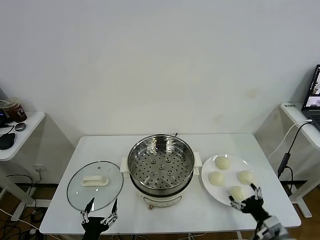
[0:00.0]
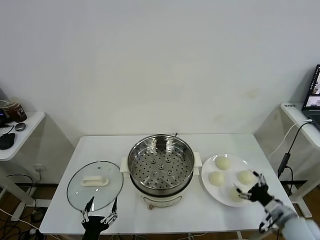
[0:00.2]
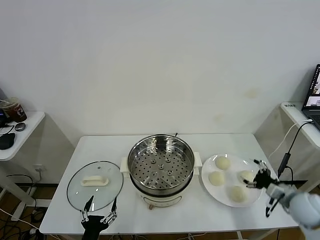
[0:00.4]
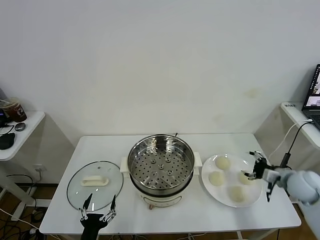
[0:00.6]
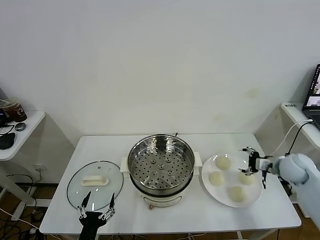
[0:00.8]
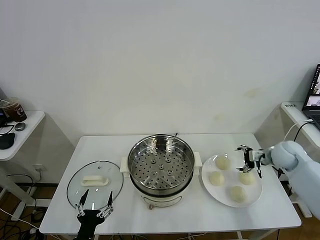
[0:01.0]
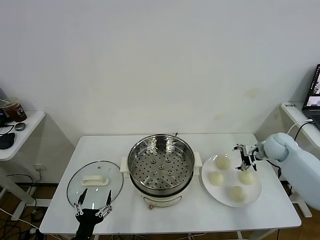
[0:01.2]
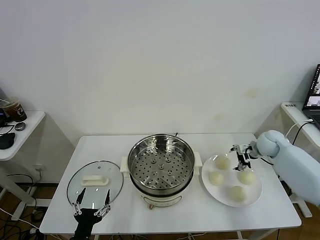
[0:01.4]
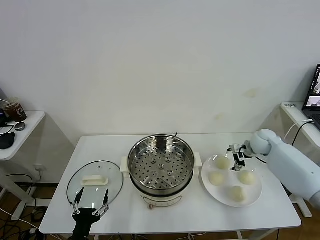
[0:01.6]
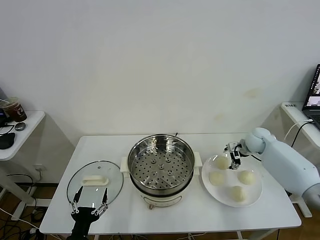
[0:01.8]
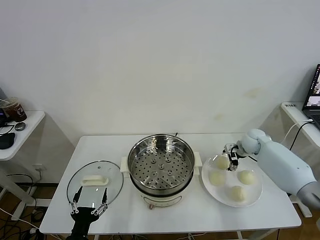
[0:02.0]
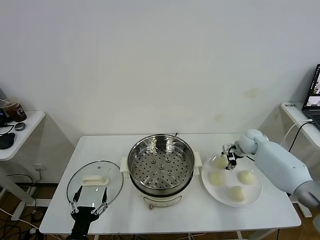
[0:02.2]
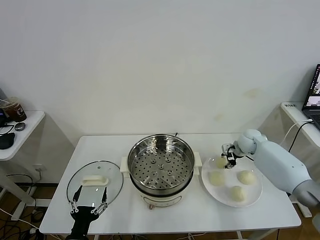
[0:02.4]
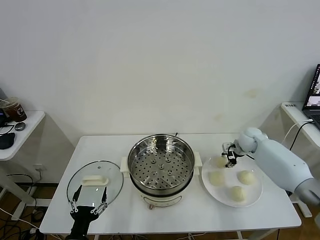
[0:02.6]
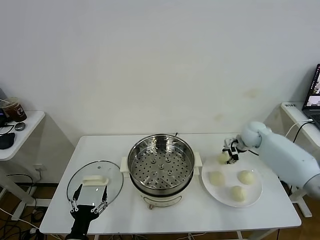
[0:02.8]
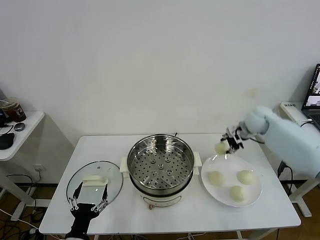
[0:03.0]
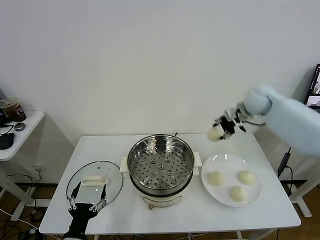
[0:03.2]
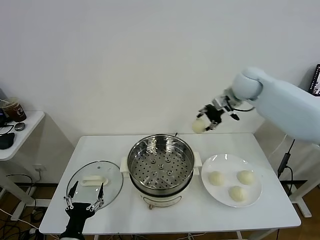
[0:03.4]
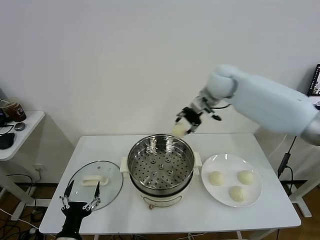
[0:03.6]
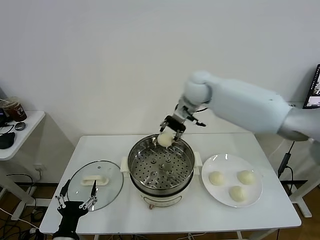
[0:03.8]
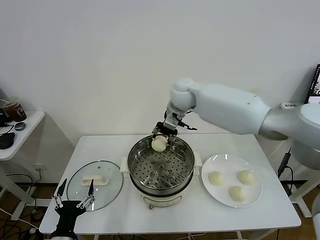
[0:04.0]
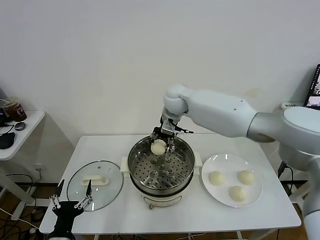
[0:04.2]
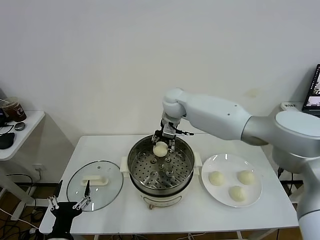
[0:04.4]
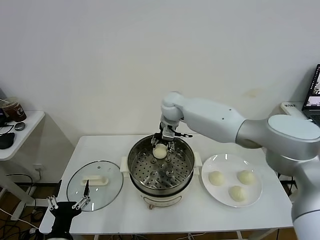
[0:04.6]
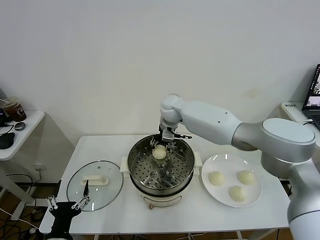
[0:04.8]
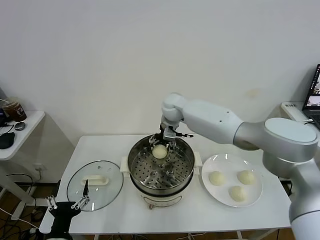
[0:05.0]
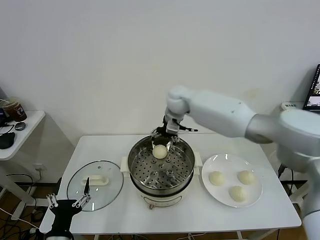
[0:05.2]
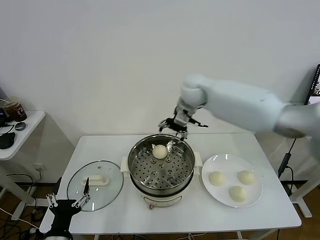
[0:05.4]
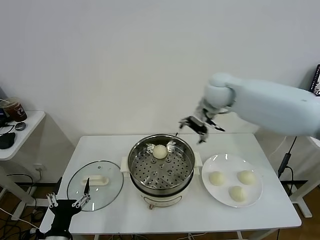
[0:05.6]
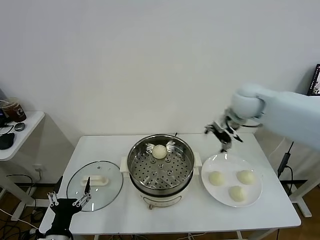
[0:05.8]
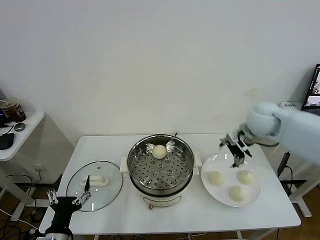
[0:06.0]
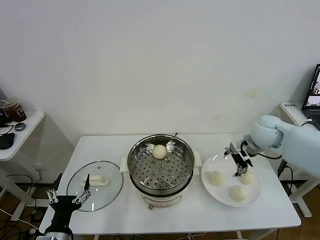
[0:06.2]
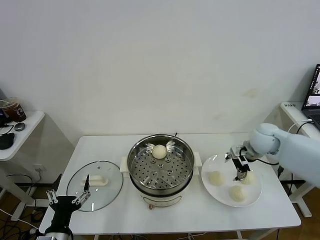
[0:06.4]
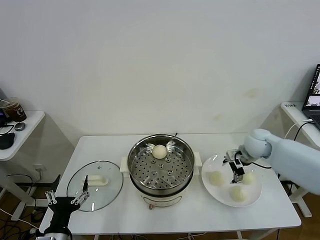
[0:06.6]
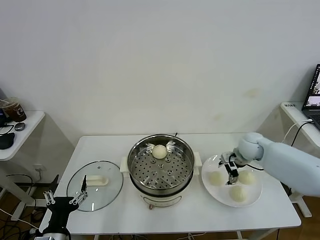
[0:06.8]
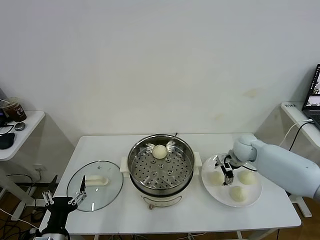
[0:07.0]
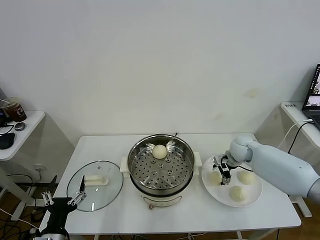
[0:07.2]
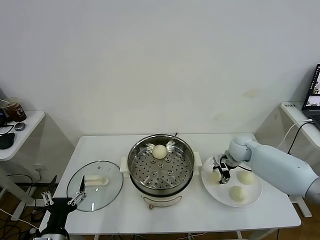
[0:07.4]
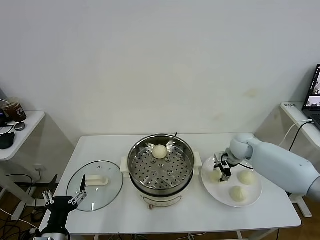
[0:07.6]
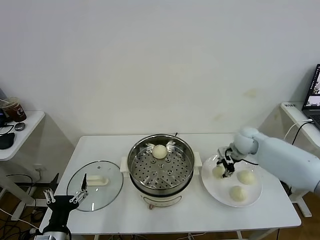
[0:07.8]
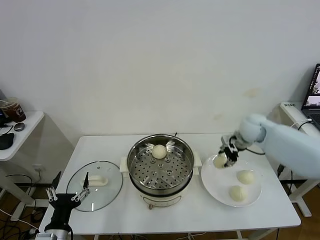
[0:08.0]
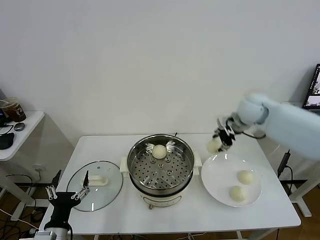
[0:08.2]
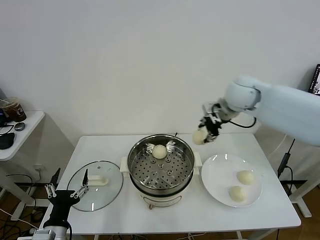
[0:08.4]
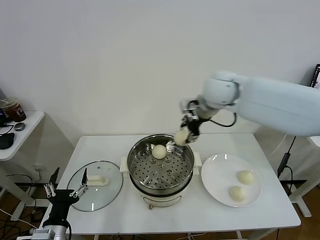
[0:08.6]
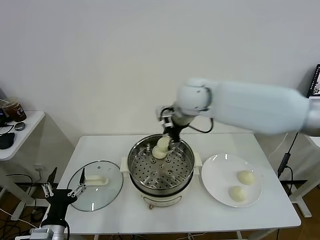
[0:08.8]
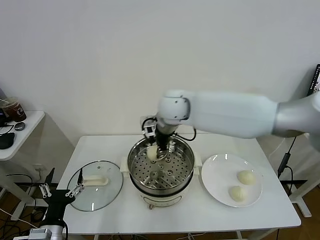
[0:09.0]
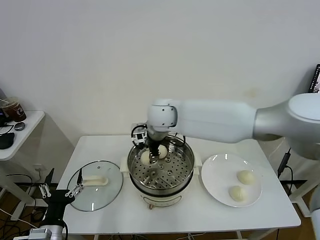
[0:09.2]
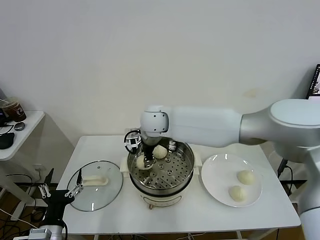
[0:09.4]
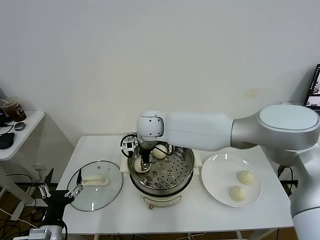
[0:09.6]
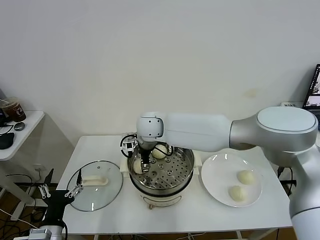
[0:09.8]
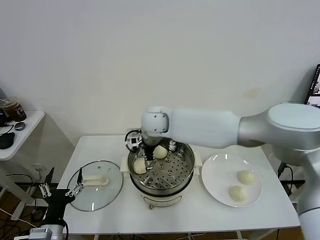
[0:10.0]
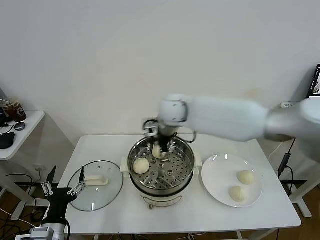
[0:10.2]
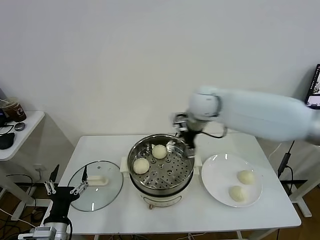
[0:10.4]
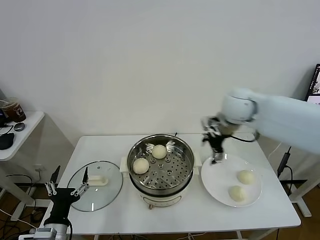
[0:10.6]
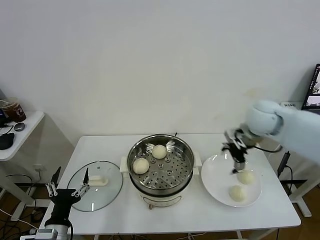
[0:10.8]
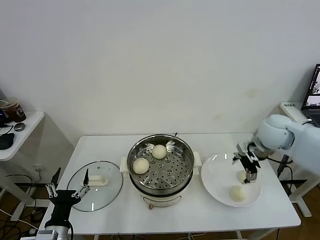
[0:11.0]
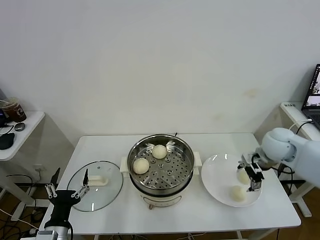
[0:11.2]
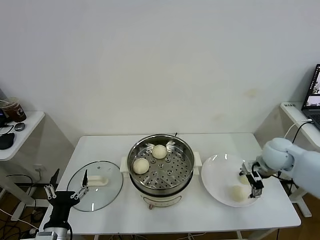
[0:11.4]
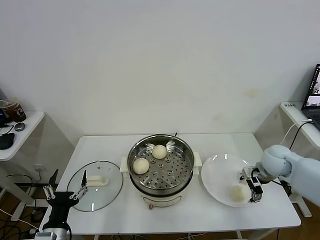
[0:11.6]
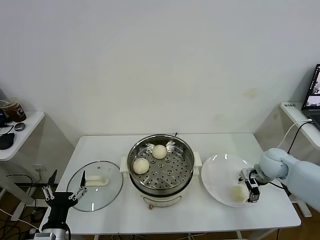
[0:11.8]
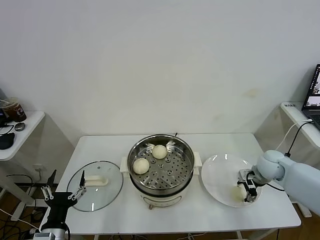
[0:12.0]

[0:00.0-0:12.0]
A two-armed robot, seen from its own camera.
Task of the whole recording: take steamed baozi put them in steamer.
Step, 0:00.0 to 0:02.0: Grasp the baozi in the plate with right gripper.
Step, 0:02.4 to 0:05.0: Place the baozi on the steamer with right gripper.
Step, 0:05.2 to 0:07.4: Grasp the baozi in the plate with right gripper.
Step, 0:07.8 to 0:09.8: Place the baozi on the steamer with right gripper.
0:01.6 to 0:03.0: The right gripper travels upward by roughly 15 cm, and closes up.
0:03.0 to 0:04.4: The right gripper shifts about 30 cm to the left.
0:04.4 to 0:06.0: The right gripper travels to the right by approximately 30 cm, and opens its fingers.
0:06.0 to 0:07.6: The right gripper moves downward, about 10 cm, and closes up.
0:07.6 to 0:09.0: The right gripper heads to the left and upward, covering about 35 cm.
0:09.0 to 0:10.4: The right gripper moves to the right, roughly 15 cm, and opens up.
0:10.4 to 0:12.0: The right gripper is displaced downward and to the right by approximately 30 cm, and closes its fingers.

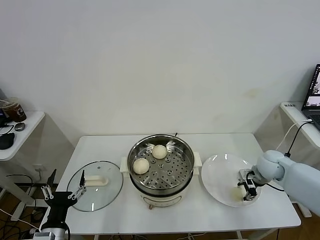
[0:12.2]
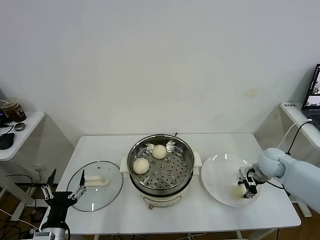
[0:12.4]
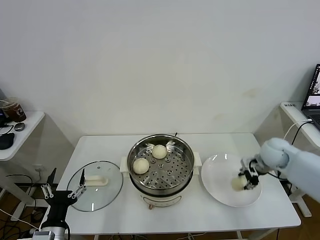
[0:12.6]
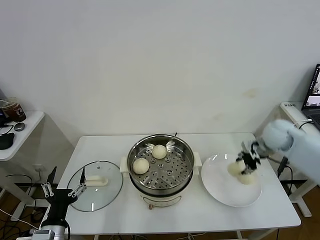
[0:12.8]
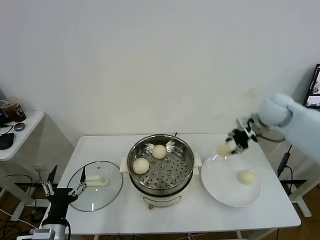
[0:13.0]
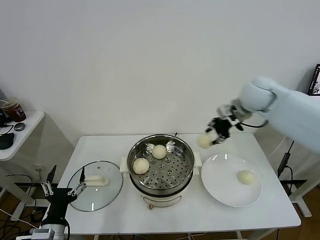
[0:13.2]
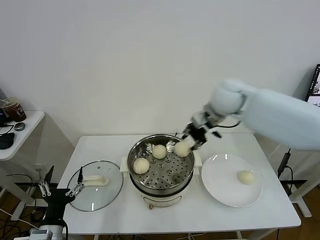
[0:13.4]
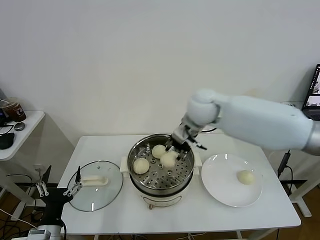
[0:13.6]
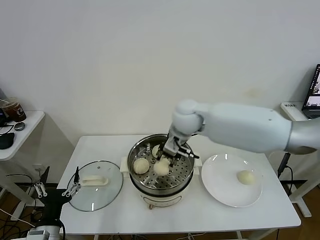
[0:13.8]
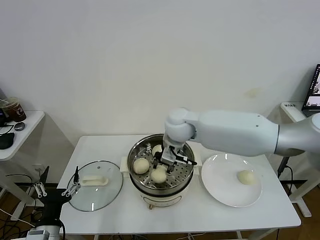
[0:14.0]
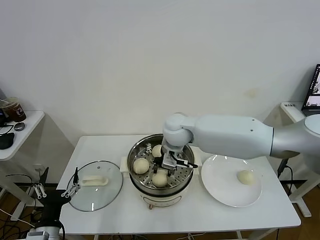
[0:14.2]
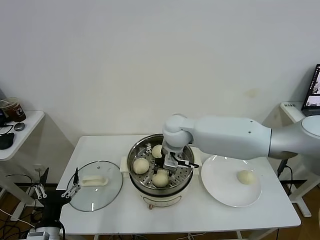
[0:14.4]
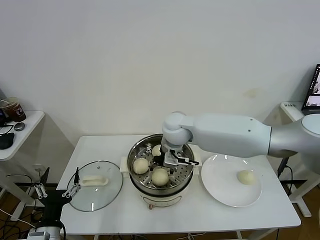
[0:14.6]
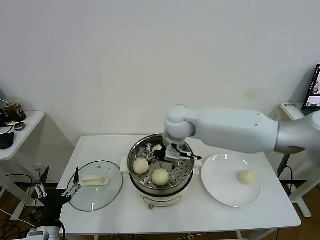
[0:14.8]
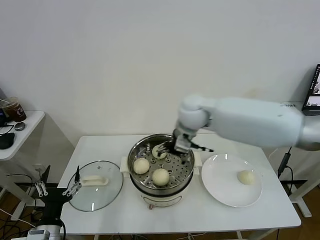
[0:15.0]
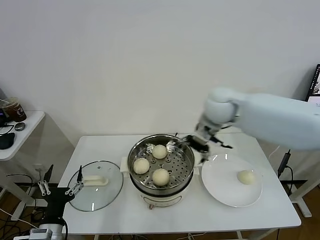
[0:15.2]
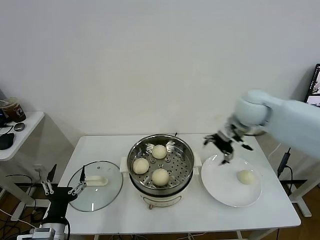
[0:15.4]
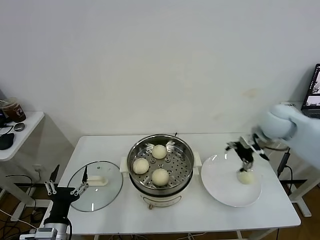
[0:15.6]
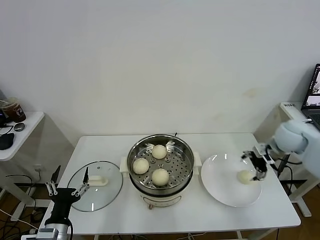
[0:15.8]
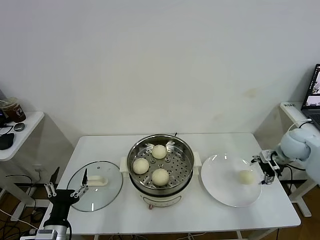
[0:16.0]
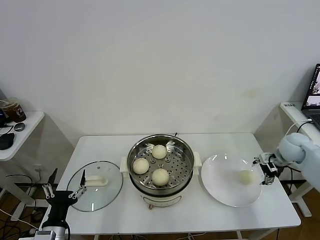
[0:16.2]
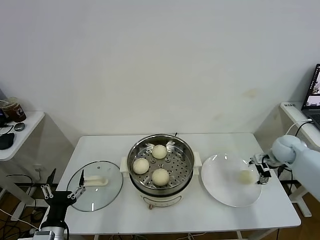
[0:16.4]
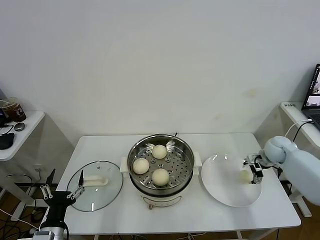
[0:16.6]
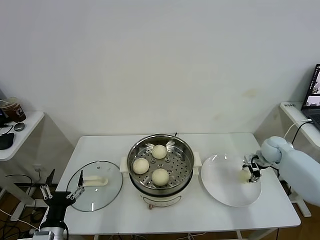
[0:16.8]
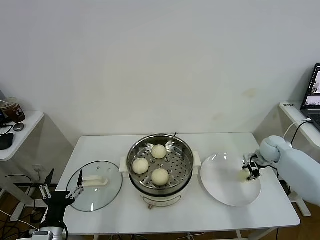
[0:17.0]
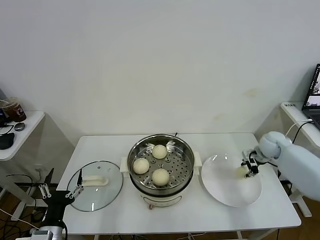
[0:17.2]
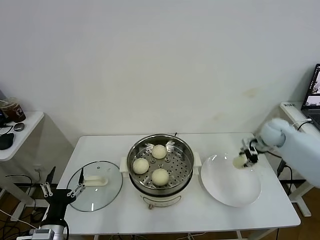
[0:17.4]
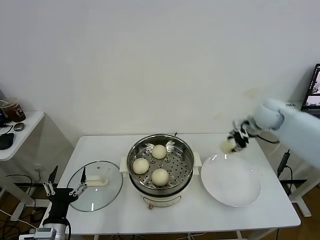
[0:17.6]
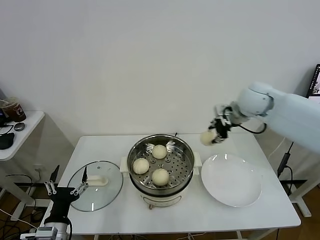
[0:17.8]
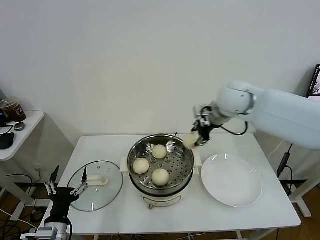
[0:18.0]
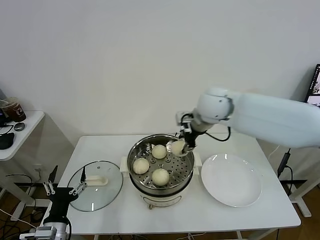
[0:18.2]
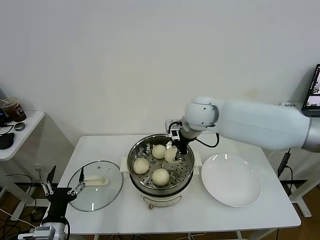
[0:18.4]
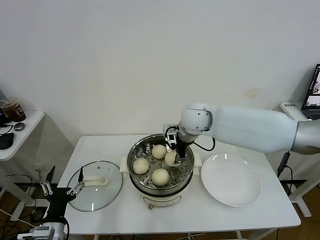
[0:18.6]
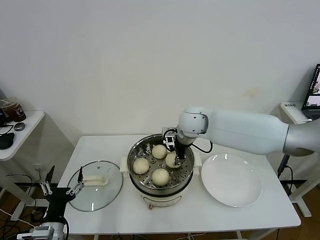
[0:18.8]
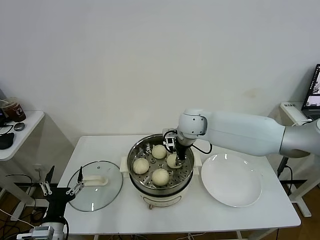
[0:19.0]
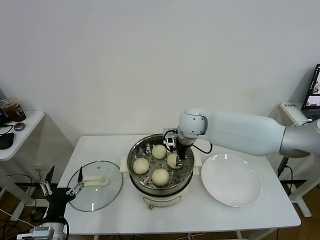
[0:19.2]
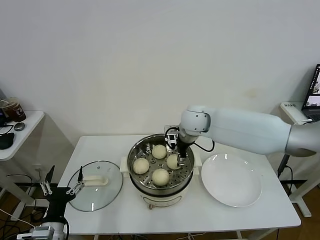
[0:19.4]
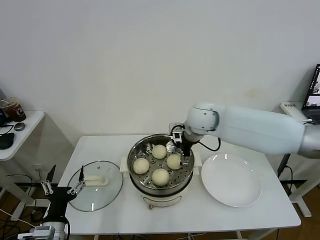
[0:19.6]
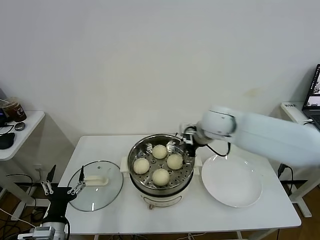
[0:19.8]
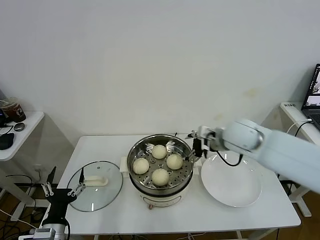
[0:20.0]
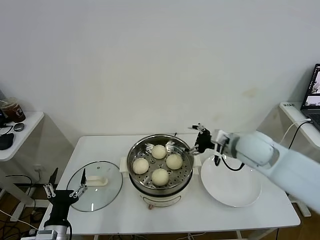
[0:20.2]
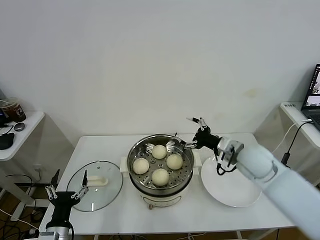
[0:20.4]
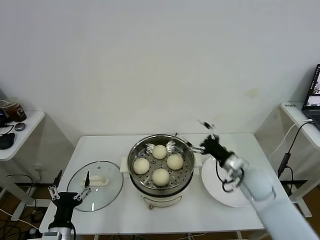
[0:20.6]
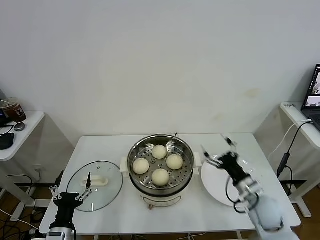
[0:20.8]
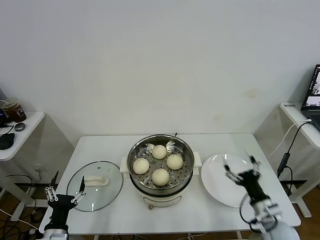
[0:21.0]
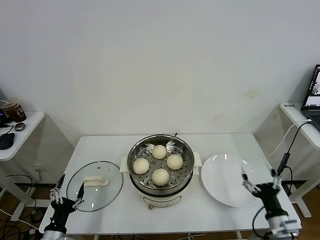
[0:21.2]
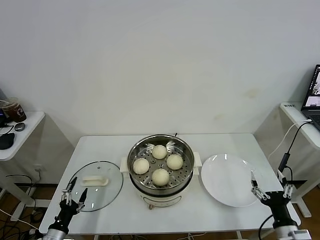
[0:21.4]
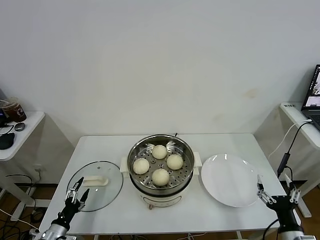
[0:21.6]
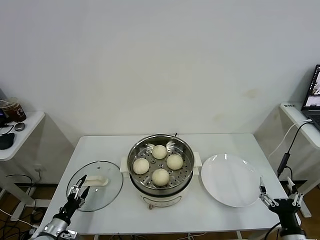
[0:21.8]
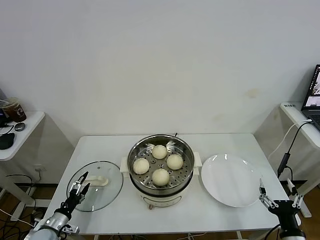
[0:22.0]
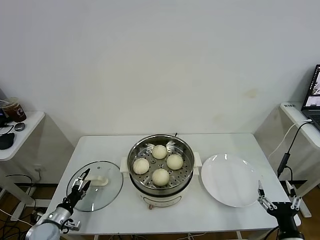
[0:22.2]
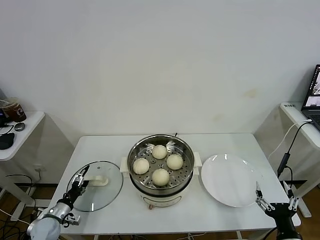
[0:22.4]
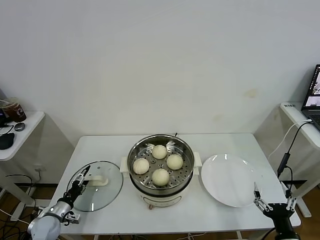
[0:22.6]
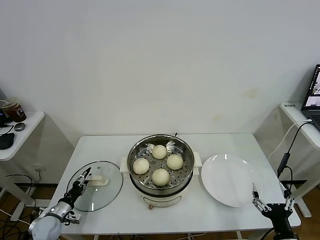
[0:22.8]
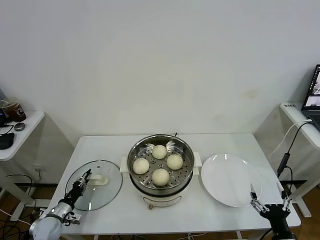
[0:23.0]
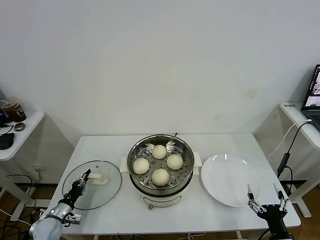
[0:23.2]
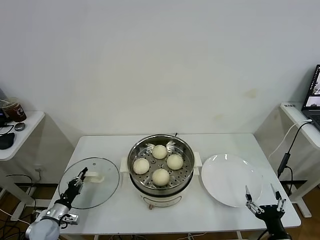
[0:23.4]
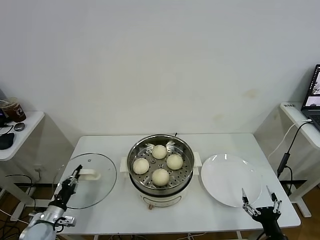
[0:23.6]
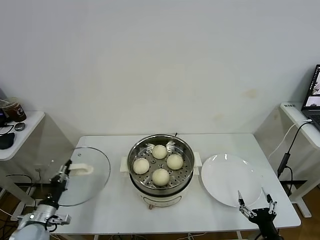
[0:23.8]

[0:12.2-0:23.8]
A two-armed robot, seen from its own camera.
Task of the whole recording: take steamed baozi put them in steamer.
Step, 0:12.4 to 0:14.8: Place the baozi on the steamer with right gripper.
Step, 0:15.2 to 0:16.8: Grasp the baozi in the plate with right gripper.
Step, 0:17.0 to 0:19.6: Place the baozi on the steamer with right gripper.
Step, 0:19.8 to 0:23.2: Grasp the pot lid with left gripper.
0:12.2 to 0:13.6: The right gripper goes roughly 35 cm to the left and upward.
0:13.6 to 0:15.0: The right gripper travels downward and back again, about 5 cm each way, and opens up.
0:15.0 to 0:16.6: The right gripper heads to the right and downward, covering some 40 cm.
0:16.6 to 0:18.0: The right gripper travels to the left and upward by roughly 35 cm, and closes its fingers.
0:18.0 to 0:19.4: The right gripper travels downward and to the left by some 10 cm, and opens.
0:19.4 to 0:21.0: The right gripper heads backward, to the right and downward, covering some 40 cm.
0:21.0 to 0:22.4: The right gripper moves backward, approximately 10 cm. Meanwhile the left gripper shifts roughly 20 cm forward, to the left and downward.
0:22.4 to 0:23.8: The left gripper travels upward by about 5 cm, and closes up.
